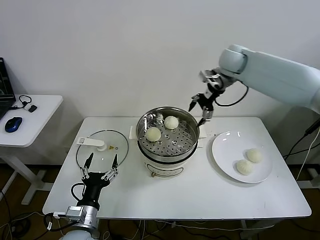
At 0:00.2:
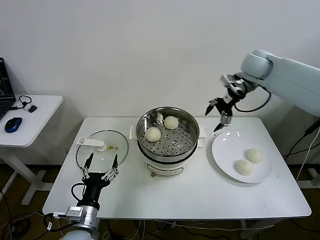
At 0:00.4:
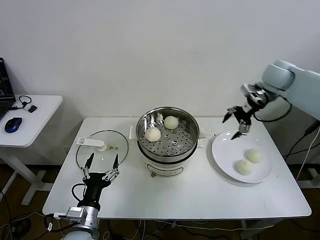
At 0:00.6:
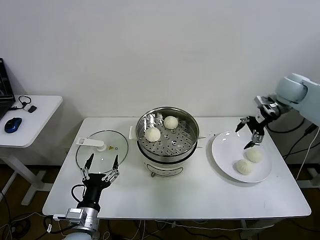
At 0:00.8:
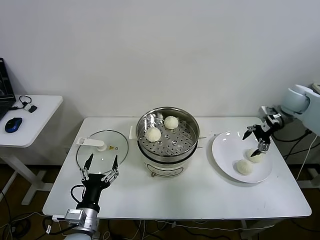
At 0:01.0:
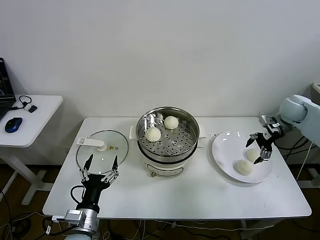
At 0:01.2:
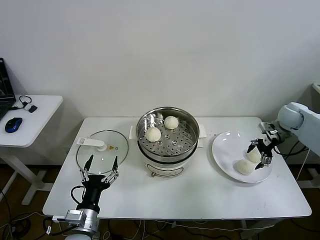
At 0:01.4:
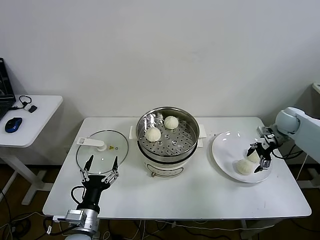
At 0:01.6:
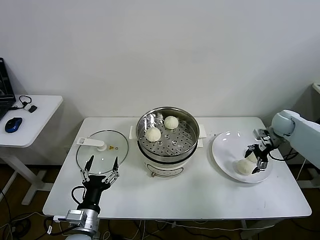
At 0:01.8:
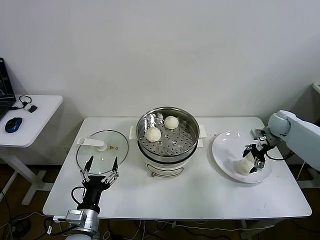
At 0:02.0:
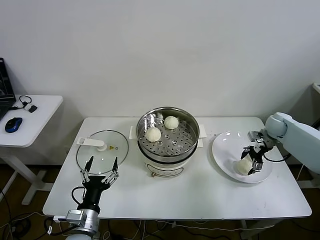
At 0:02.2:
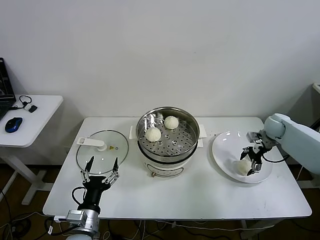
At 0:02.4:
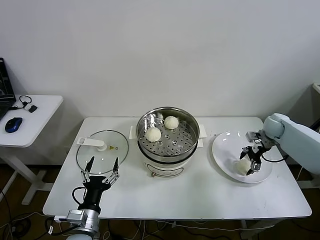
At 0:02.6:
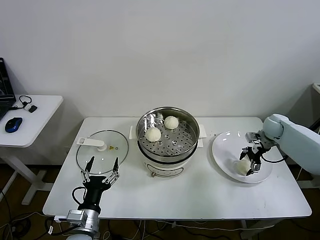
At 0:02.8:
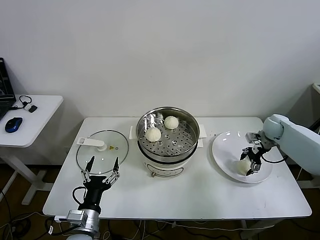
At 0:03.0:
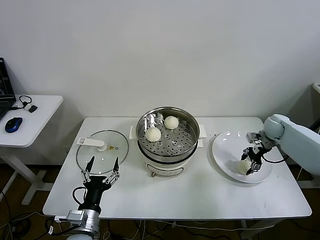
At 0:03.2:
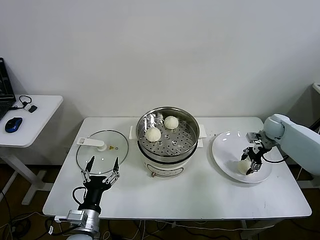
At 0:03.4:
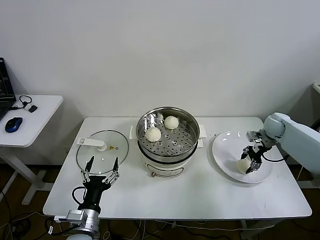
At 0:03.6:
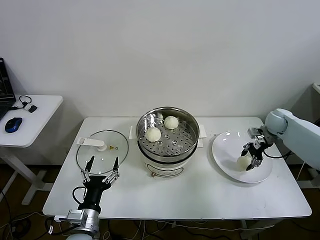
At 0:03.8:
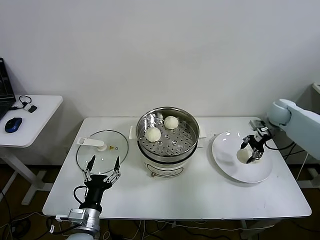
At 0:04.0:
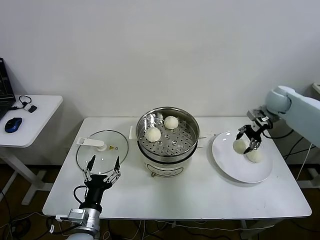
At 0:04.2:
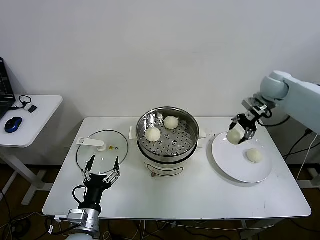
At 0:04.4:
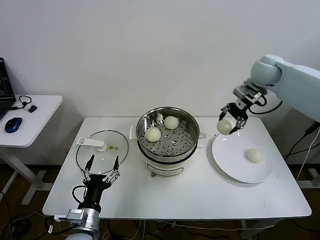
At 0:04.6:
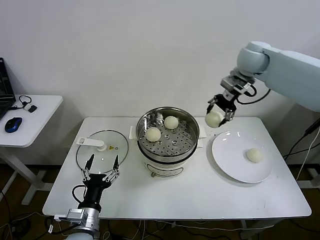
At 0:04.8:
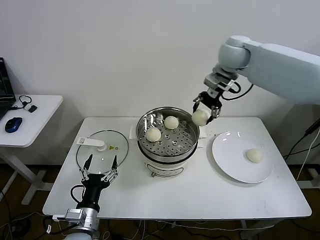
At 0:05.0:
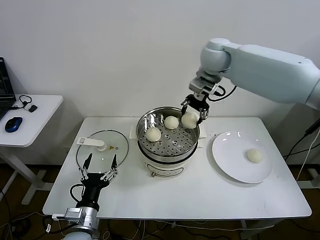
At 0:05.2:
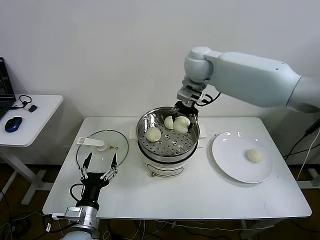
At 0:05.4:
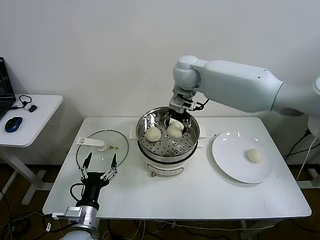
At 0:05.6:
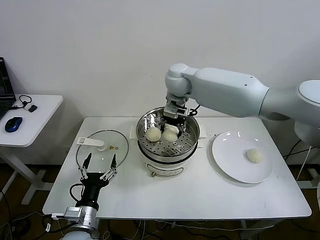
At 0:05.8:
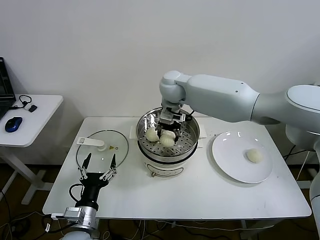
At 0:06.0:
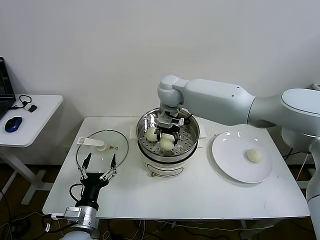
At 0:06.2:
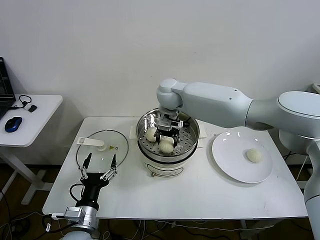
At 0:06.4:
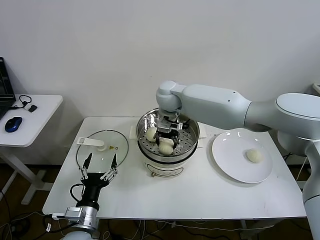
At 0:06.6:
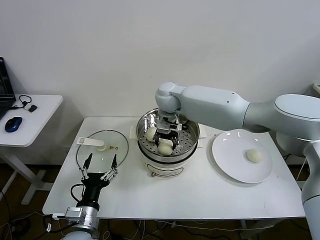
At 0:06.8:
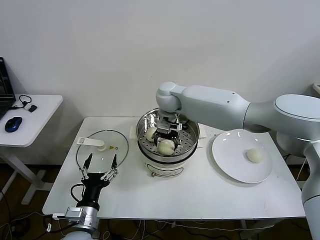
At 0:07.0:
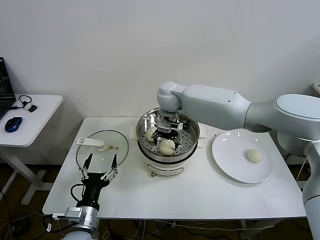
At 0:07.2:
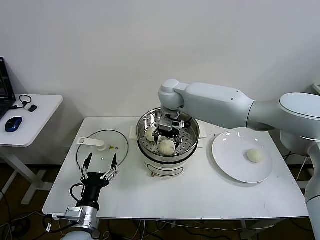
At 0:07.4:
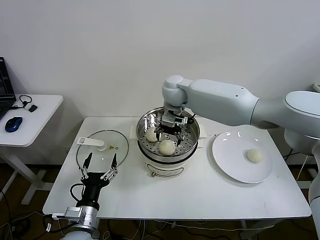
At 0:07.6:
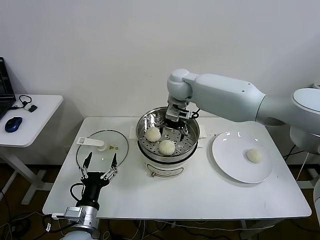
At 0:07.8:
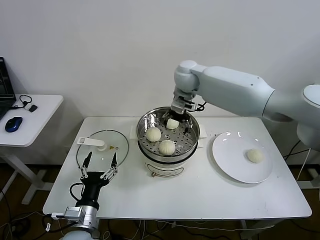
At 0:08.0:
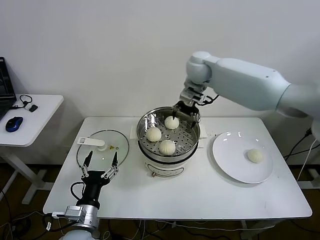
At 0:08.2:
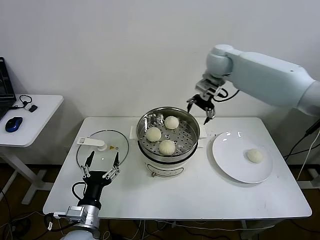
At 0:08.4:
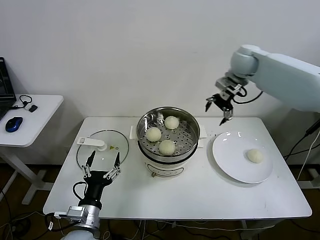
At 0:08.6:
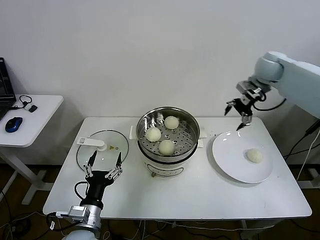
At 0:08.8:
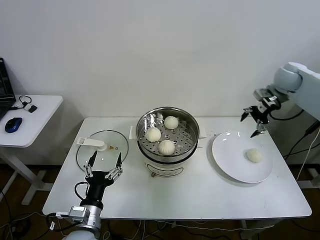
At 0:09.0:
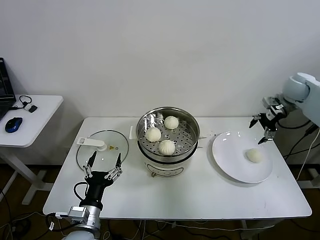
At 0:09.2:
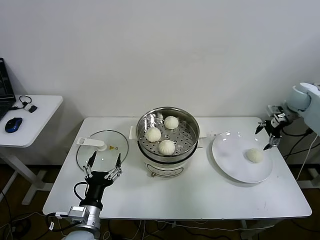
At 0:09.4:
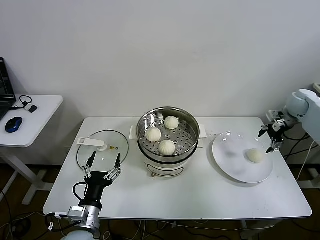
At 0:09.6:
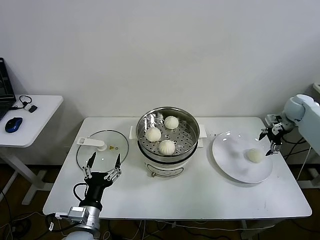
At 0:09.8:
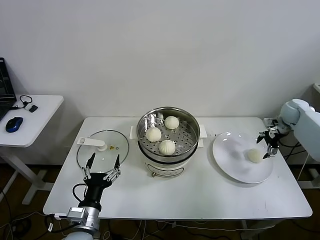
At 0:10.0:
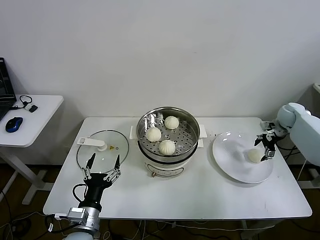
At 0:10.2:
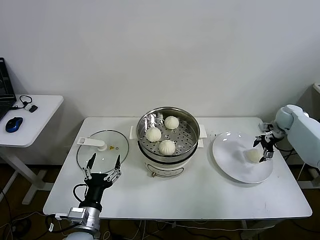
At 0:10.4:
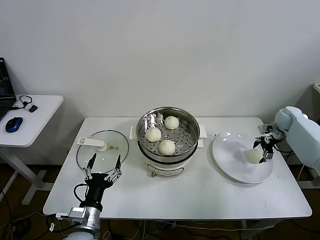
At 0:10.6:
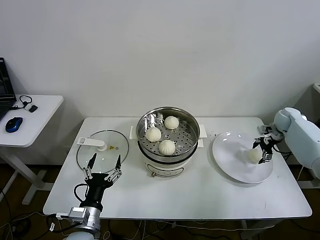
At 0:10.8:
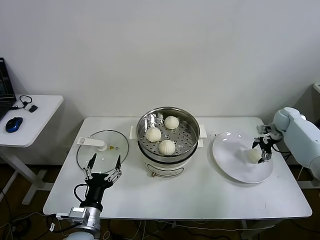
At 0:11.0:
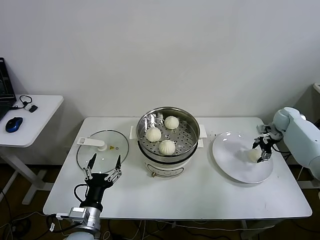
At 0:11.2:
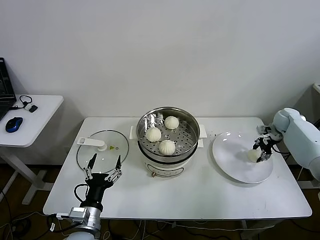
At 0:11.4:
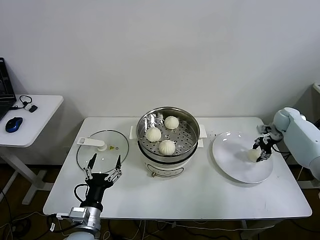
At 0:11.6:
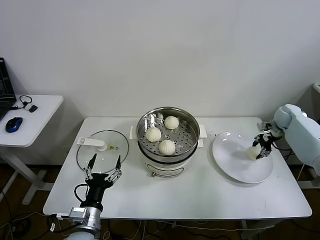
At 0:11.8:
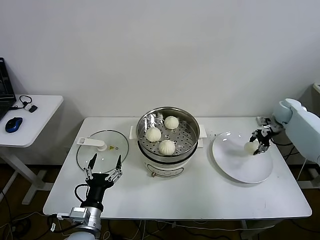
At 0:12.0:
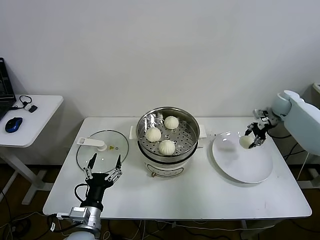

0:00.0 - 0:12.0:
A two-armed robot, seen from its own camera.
Task of the whole recording: take steamed baozi put them in steamer.
Step, 0:00.0 - 0:03.0: Grasp the baozi in the plate with right gripper.
Step, 0:03.2 - 0:07.0: Place the baozi on the steamer with right gripper.
Step, 0:07.2 - 0:11.2: Grasp the baozi in the plate with right gripper.
0:00.0 - 0:01.6: The right gripper heads downward and to the right, covering roughly 30 cm.
0:01.6 - 0:03.0: The right gripper closes.
0:03.0 - 0:04.4: The right gripper goes some 25 cm upward and to the left.
0:04.4 - 0:06.0: The right gripper travels to the left by about 30 cm.
0:06.0 - 0:07.6: The right gripper opens up.
0:07.6 - 0:09.0: The right gripper shifts roughly 40 cm to the right.
0:09.0 - 0:10.4: The right gripper goes approximately 15 cm downward.
0:10.4 - 0:12.0: The right gripper travels upward by about 5 cm, and closes its fingers.

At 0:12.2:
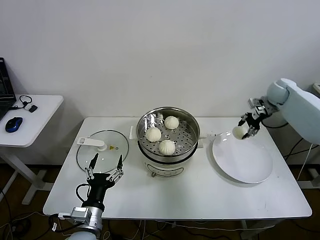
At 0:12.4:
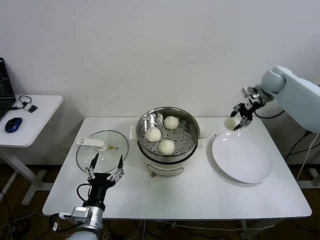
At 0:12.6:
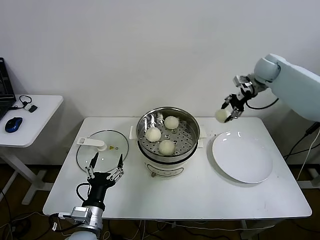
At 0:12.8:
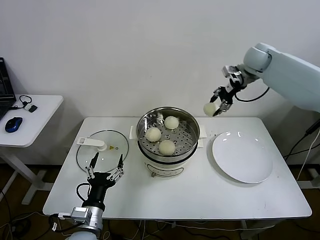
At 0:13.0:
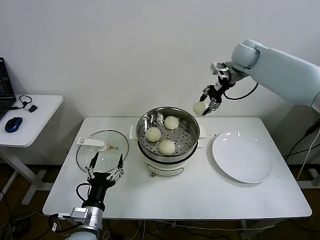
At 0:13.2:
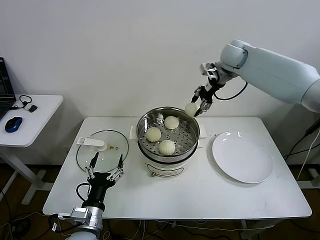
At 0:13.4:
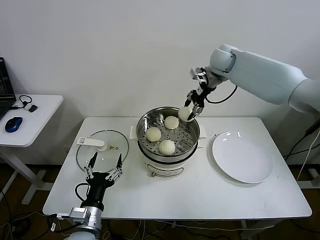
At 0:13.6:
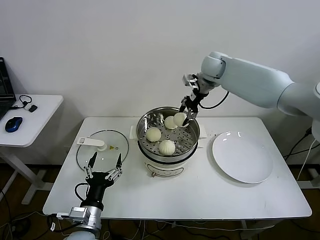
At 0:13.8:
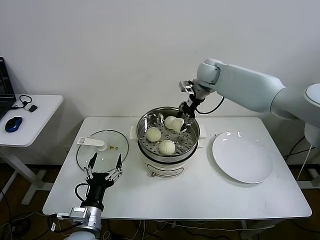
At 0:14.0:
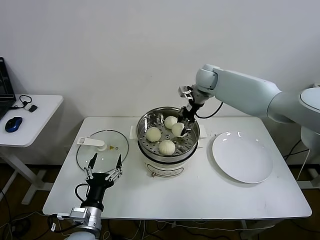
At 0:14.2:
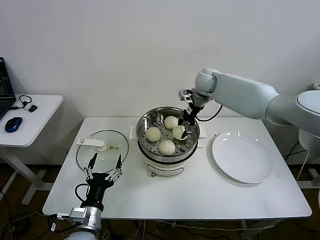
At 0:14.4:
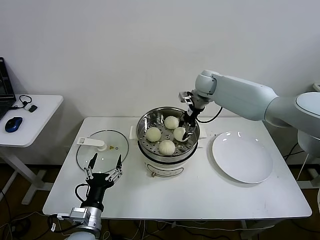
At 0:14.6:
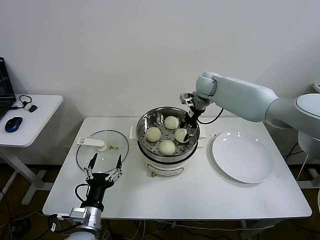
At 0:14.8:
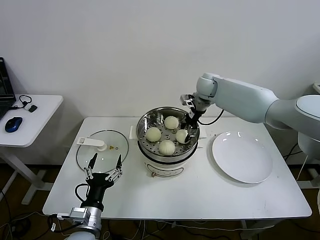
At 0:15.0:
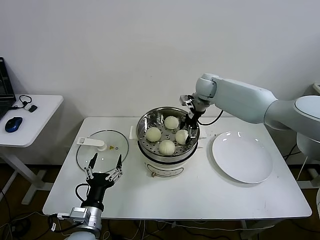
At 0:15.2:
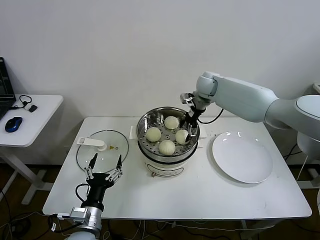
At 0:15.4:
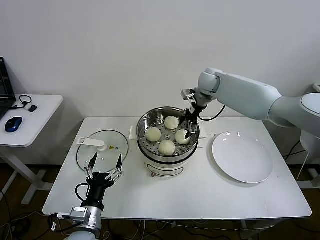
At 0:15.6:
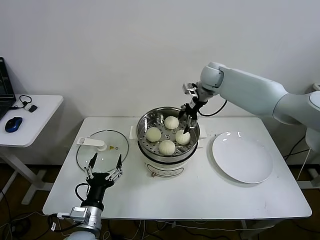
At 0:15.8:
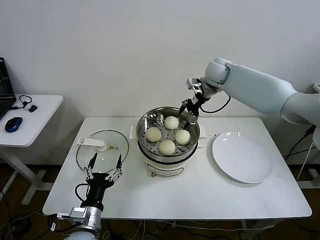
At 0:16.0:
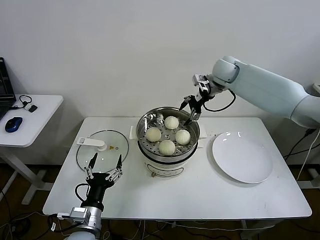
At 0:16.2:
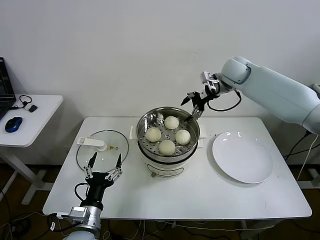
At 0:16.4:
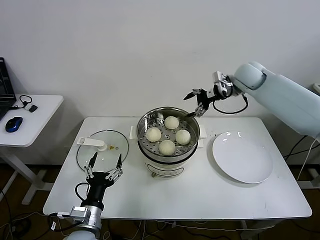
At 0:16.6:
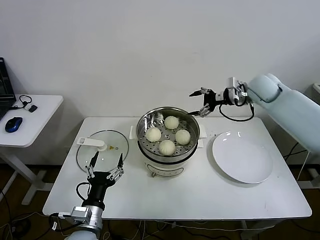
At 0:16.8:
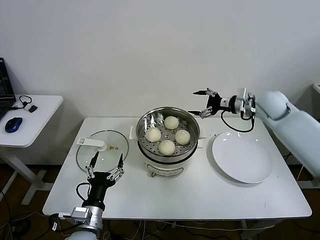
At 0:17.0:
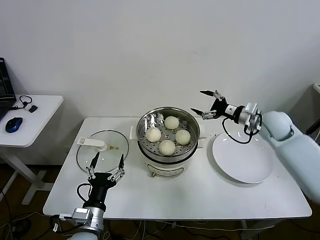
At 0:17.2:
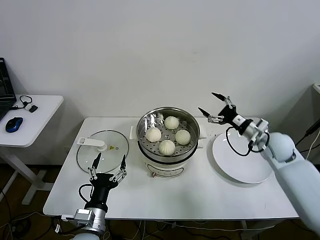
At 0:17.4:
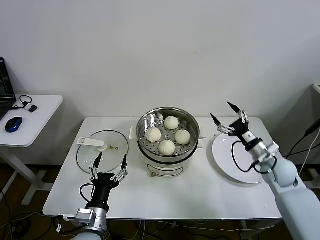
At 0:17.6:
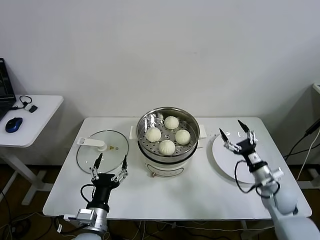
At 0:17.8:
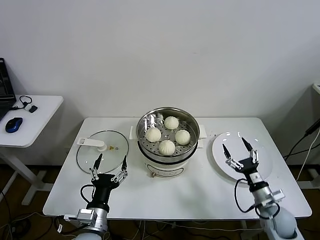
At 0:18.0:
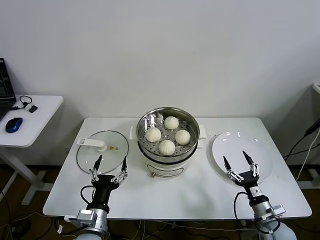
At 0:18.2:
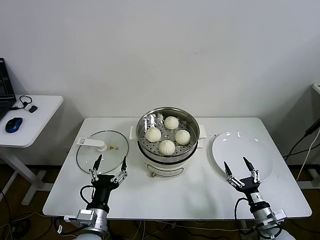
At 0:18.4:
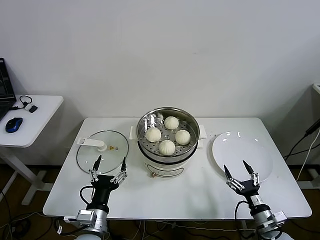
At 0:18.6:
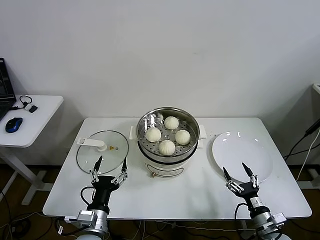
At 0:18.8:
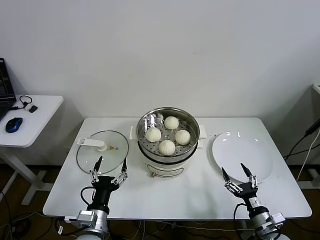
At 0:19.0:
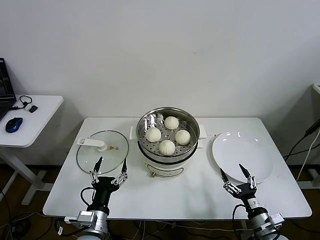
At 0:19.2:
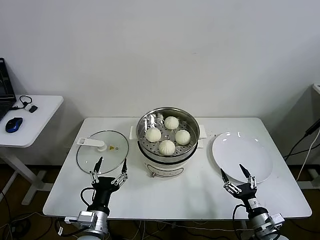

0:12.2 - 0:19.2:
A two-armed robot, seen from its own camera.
Task of the whole recording: take steamed baozi put them in steamer.
Step, 0:12.2 - 0:15.0: Place the baozi on the steamer with right gripper.
0:12.2 - 0:13.6: The right gripper heads to the left, covering some 25 cm.
0:13.6 - 0:15.0: The right gripper moves downward, approximately 10 cm, and opens.
0:15.0 - 0:16.4: The right gripper is displaced to the right and upward by about 15 cm, and opens up.
0:16.4 - 0:17.8: The right gripper moves backward and downward, roughly 50 cm.
0:17.8 - 0:19.2: The right gripper heads backward, covering some 10 cm.
